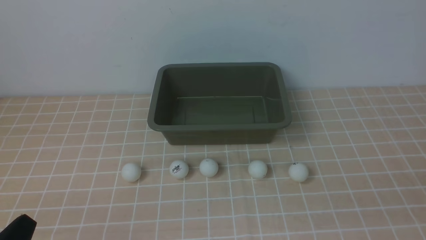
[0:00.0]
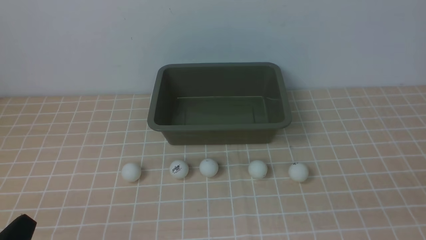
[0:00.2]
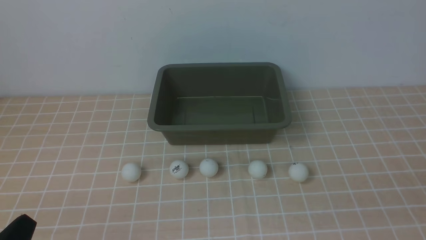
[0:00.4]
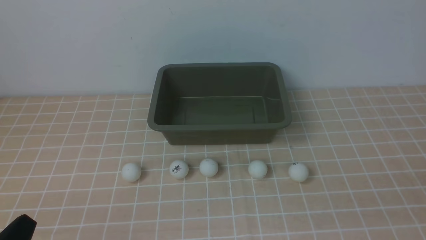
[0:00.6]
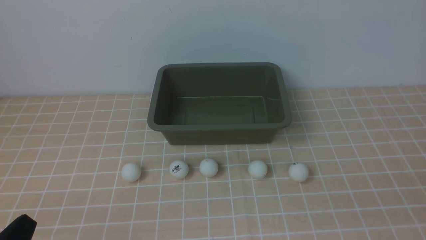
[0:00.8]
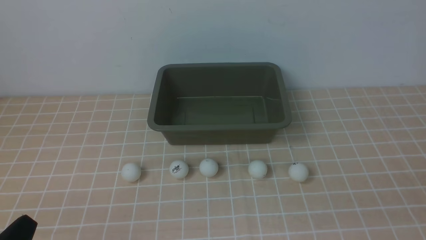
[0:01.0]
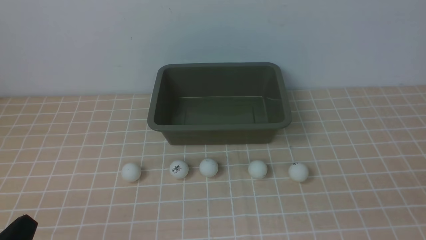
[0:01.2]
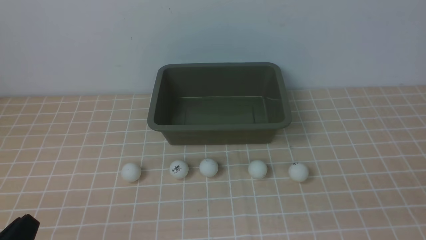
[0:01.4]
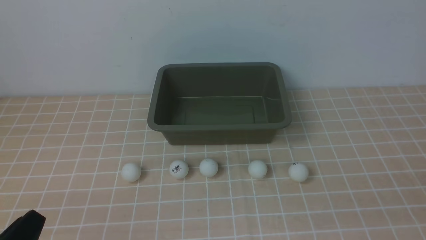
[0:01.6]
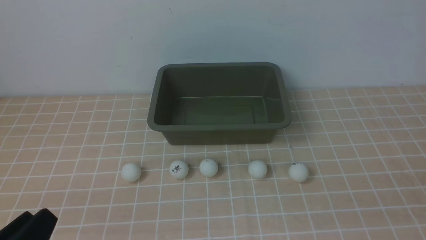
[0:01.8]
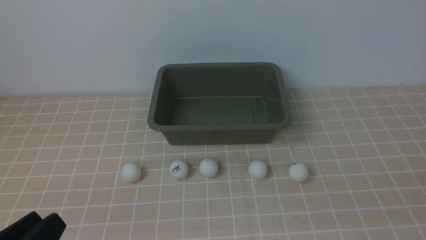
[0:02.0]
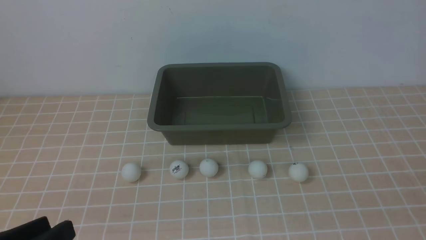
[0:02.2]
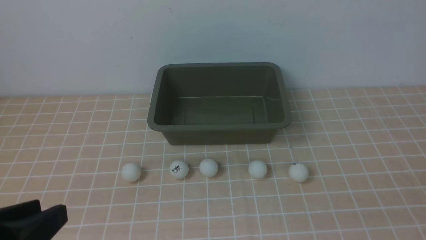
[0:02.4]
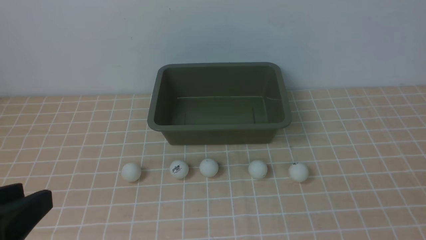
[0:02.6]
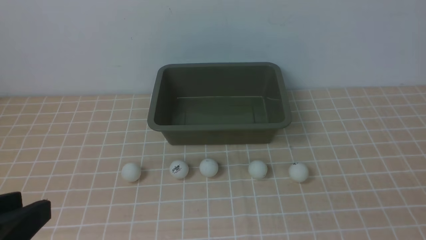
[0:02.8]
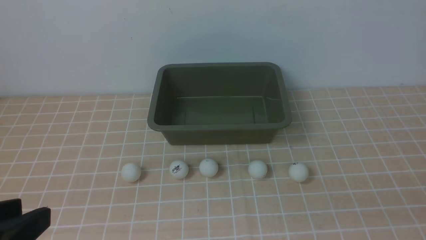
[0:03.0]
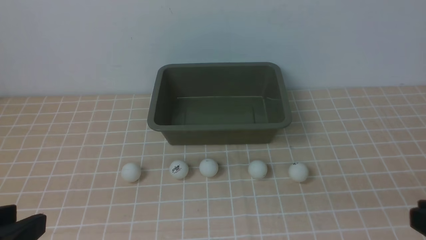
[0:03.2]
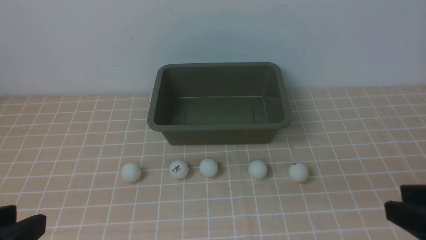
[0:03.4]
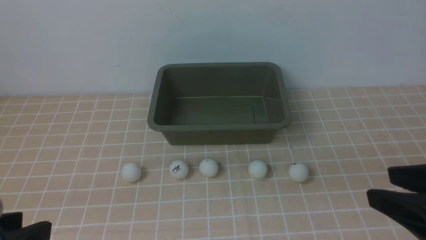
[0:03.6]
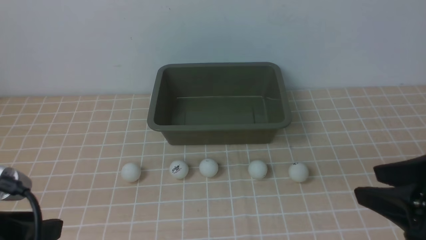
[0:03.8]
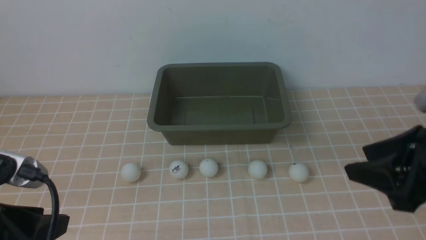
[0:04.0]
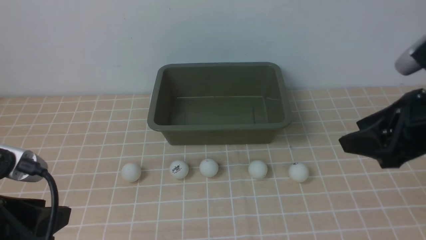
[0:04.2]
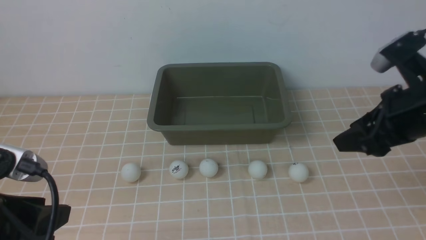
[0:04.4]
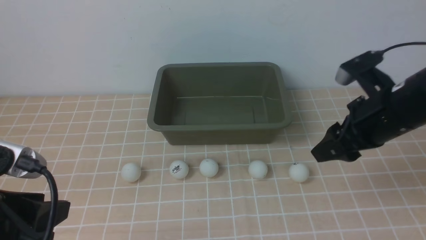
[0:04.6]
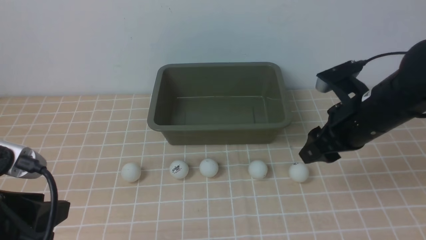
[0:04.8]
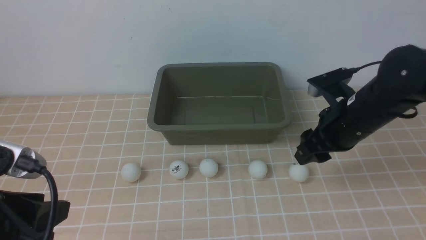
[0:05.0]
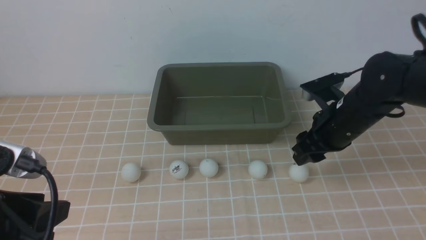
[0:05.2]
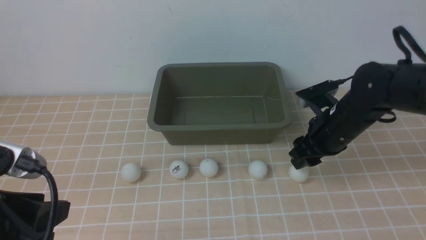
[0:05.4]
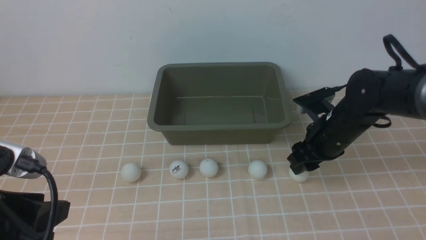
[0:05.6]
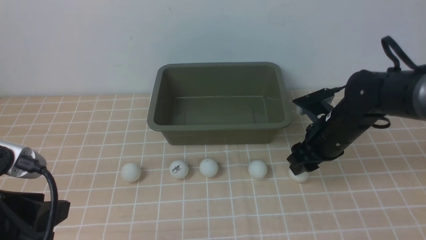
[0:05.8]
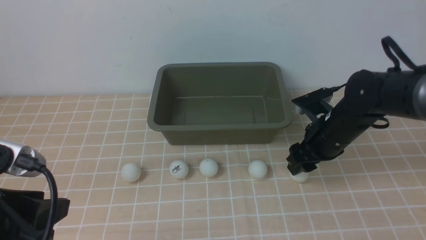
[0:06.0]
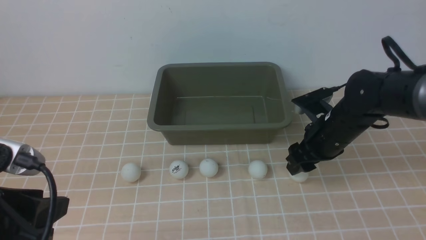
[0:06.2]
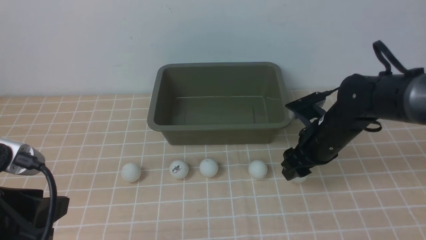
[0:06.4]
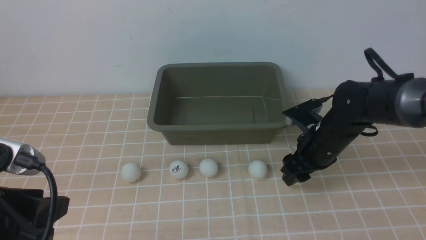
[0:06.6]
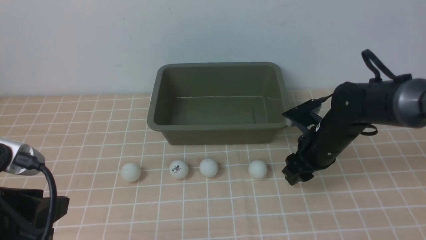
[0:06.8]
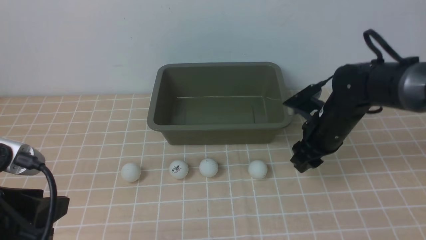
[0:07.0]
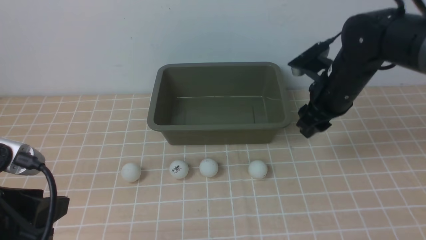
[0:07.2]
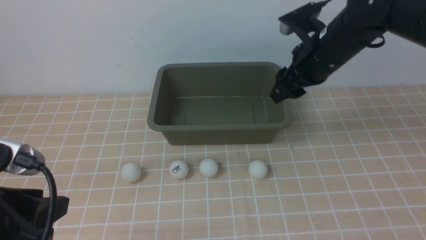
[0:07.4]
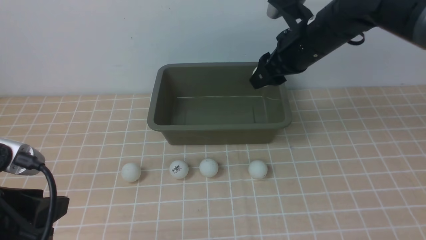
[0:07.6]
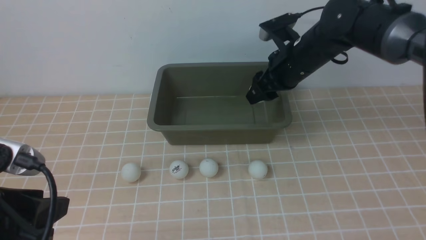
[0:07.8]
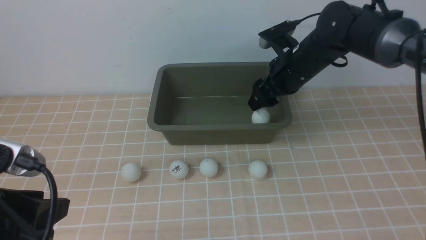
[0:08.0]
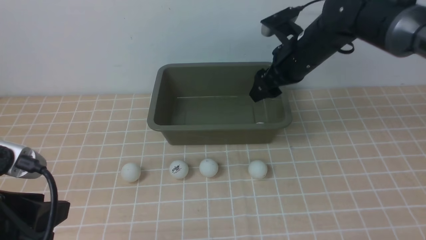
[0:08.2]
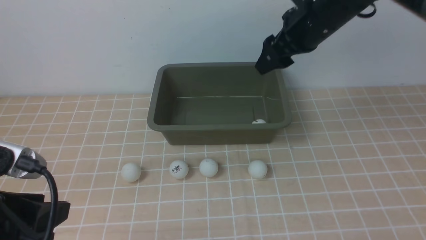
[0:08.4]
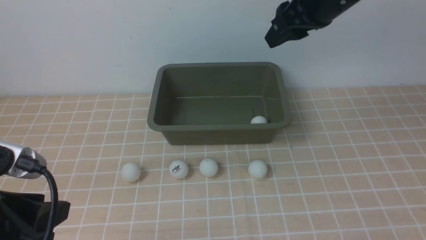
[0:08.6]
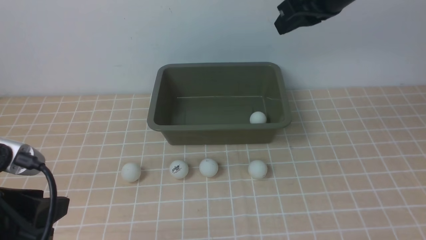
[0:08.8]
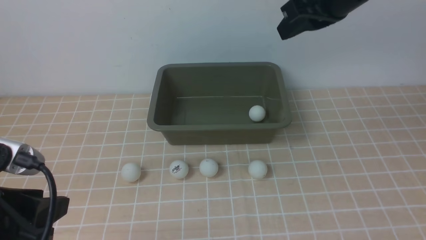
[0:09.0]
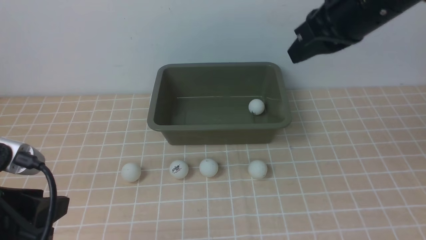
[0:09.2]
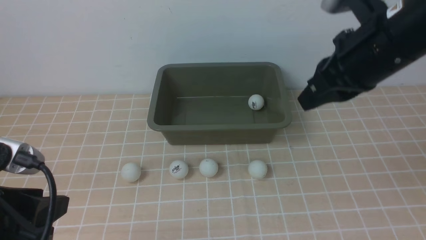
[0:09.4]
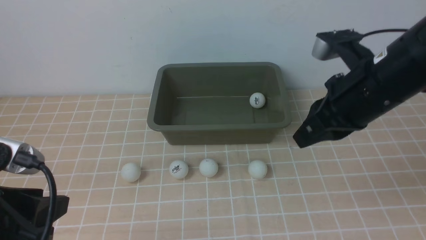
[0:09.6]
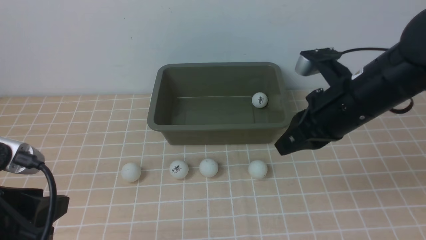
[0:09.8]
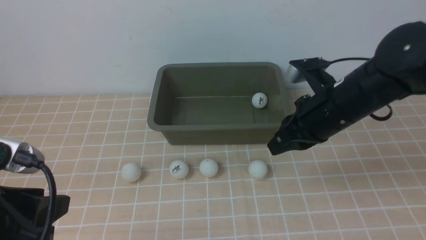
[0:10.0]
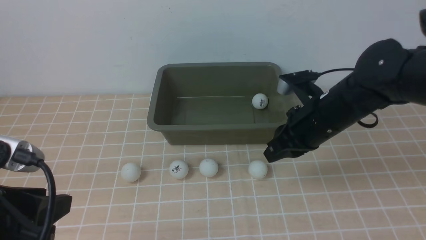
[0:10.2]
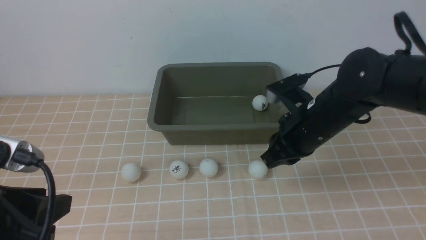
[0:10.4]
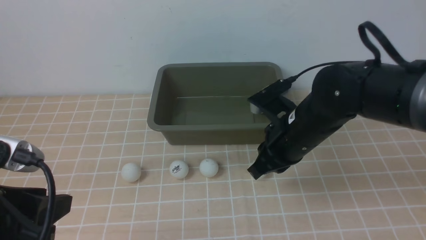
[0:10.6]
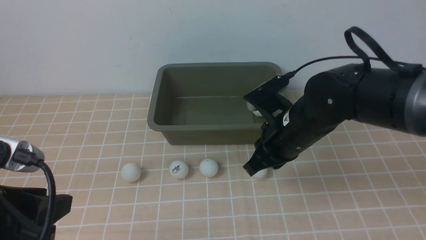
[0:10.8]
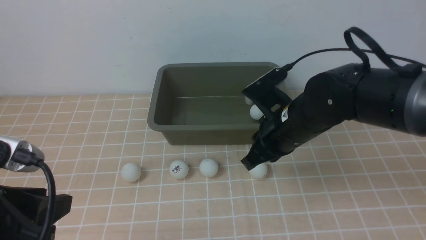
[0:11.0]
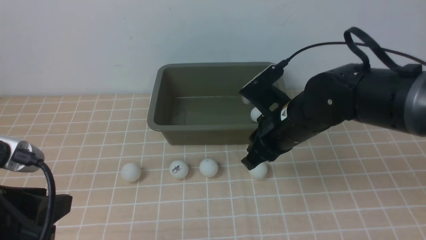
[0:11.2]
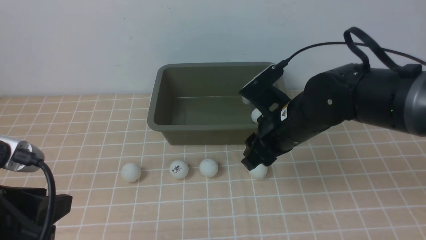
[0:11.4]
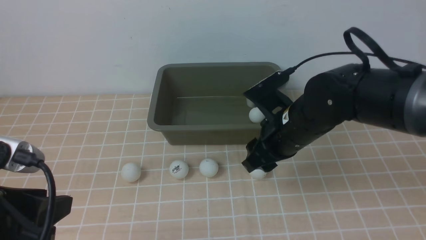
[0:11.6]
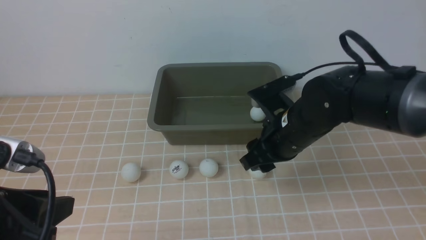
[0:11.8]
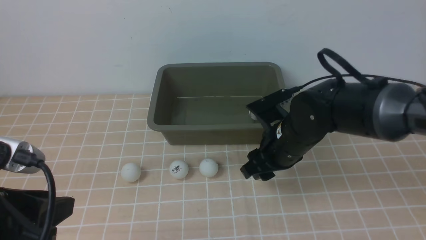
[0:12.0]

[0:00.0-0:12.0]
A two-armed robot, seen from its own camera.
Step, 0:00.0 to 0:07.2: use the right arm to clamp the table tennis ball closest to it.
Step, 0:07.4 to 0:08.4: use the right arm to put the table tennis ball into the box.
0:01.6 to 0:03.0: The left gripper is displaced upward by roughly 10 cm.
0:03.0 to 0:04.4: The right gripper goes roughly 25 cm forward, and opens its fingers. Meanwhile the left gripper shifts about 5 cm forward.
0:04.4 to 0:06.0: The right gripper shifts some 15 cm downward and forward.
0:06.0 to 0:07.6: The right gripper shifts roughly 15 cm upward and forward.
0:07.6 to 0:09.0: The right gripper is displaced upward and backward by some 15 cm, and closes up.
0:09.0 to 0:10.4: The right gripper heads downward, covering roughly 20 cm.
0:10.4 to 0:12.0: The right gripper opens up.

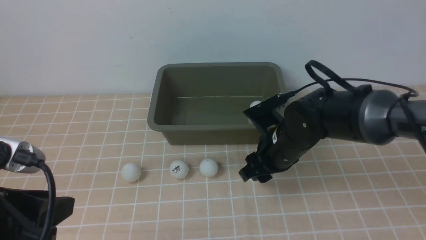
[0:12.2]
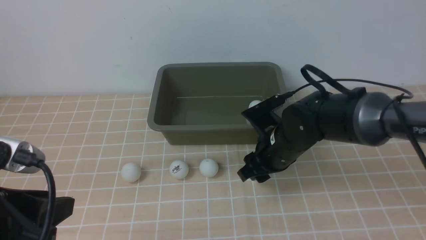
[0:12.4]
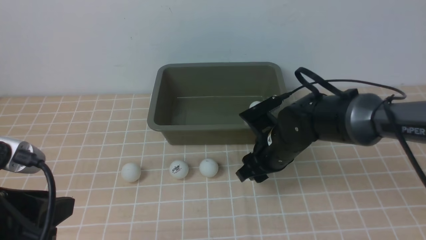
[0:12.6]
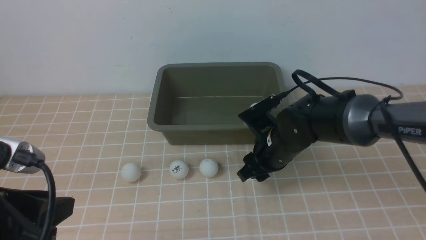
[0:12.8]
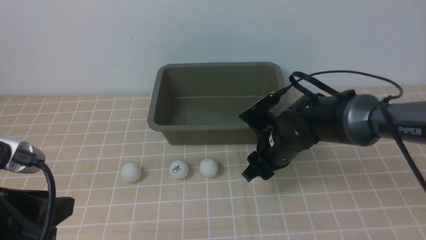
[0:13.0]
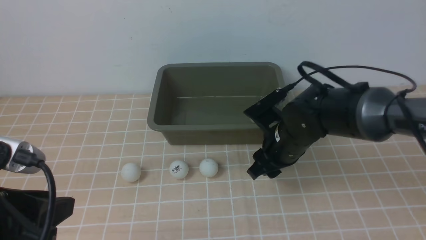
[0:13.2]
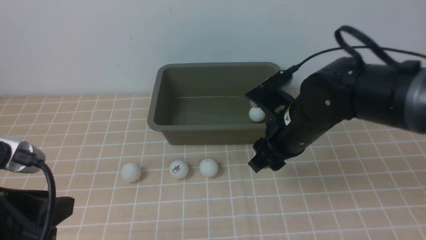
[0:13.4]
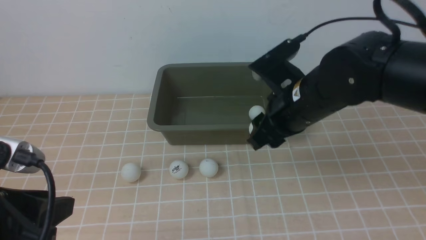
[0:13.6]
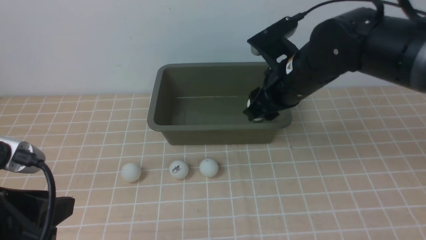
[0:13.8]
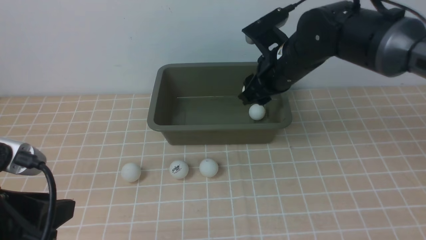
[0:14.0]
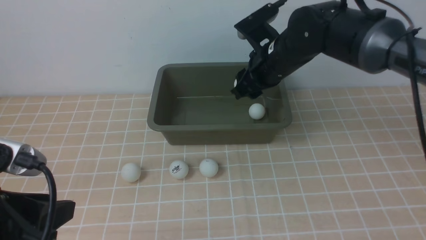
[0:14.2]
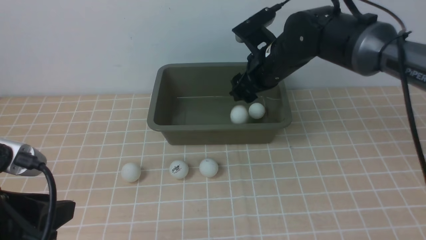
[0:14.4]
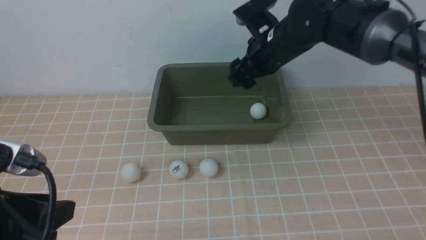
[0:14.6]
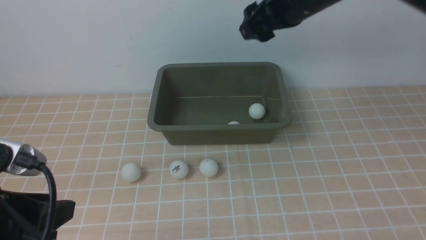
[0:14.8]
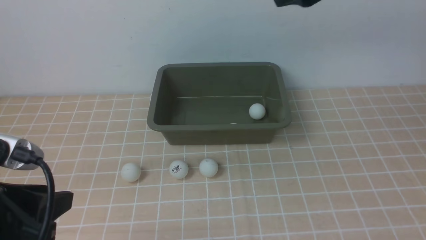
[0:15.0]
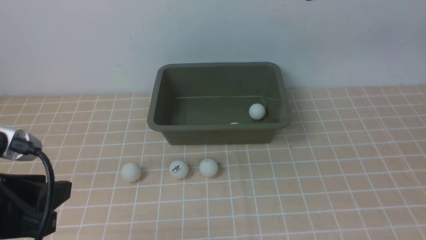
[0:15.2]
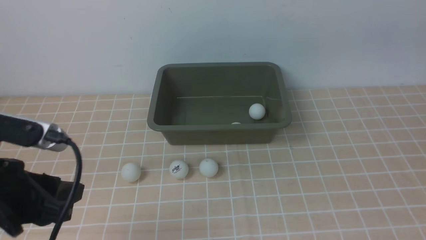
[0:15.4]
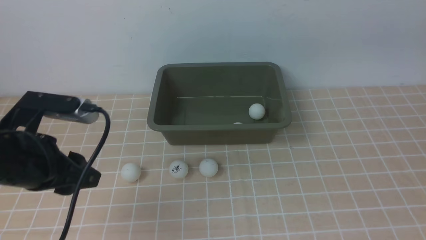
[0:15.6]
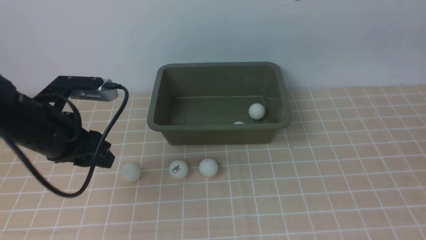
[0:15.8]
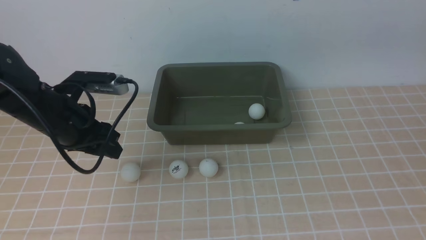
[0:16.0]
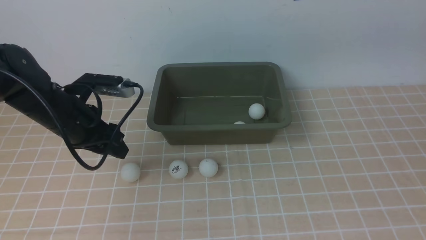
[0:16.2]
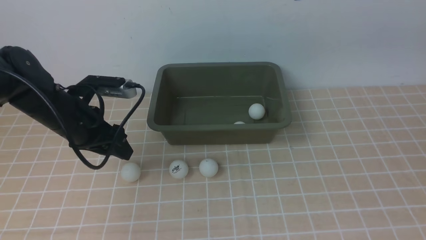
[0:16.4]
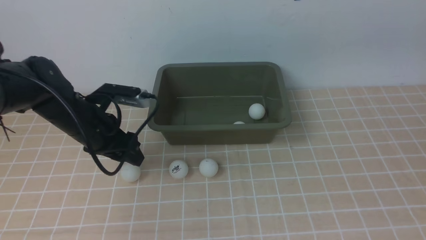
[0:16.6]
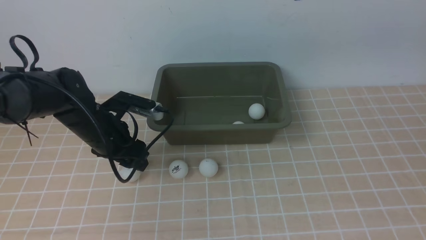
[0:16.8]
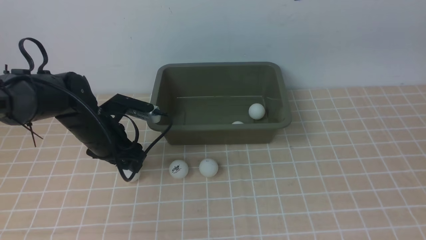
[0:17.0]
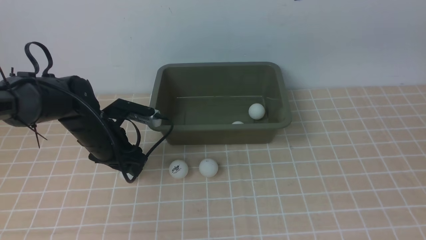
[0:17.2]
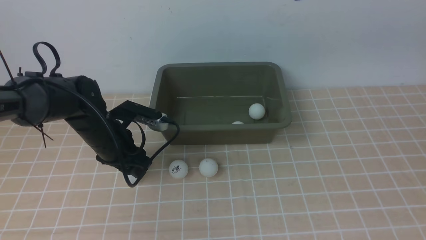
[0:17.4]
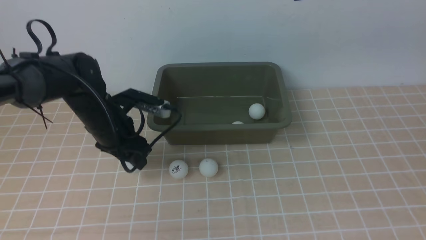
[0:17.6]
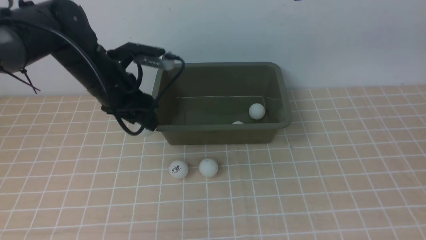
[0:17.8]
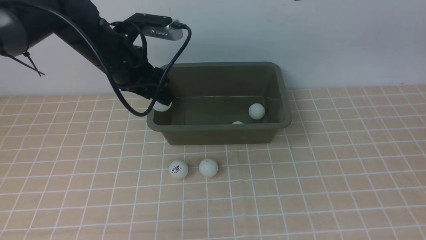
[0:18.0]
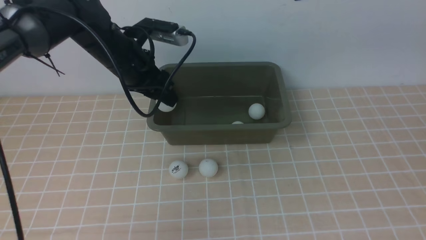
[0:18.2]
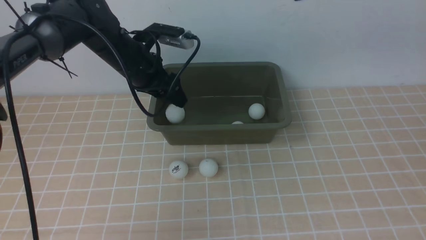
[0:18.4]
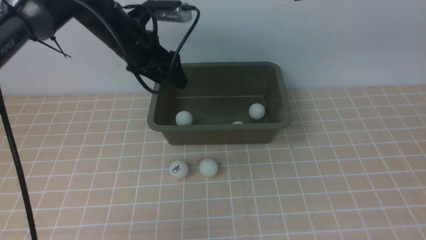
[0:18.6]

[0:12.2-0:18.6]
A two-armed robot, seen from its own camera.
Step, 0:13.6 to 0:14.8: use the right arm to put the table tennis ball into the box.
Step, 0:15.0 to 0:17.8: use the left arm to clamp the table tennis ball closest to it.
0:12.2 to 0:13.8: The right gripper moves upward, about 10 cm.
0:13.8 to 0:15.4: The right gripper moves upward and backward, about 25 cm, and closes its fingers. Meanwhile the left gripper shifts roughly 5 cm forward.
0:15.4 to 0:17.0: The left gripper goes approximately 25 cm forward and downward.
0:17.0 to 0:18.6: The left gripper heads upward and forward, covering about 15 cm.
